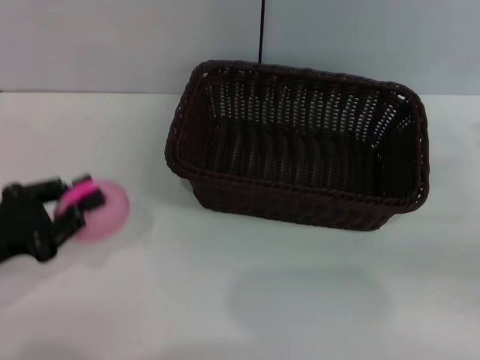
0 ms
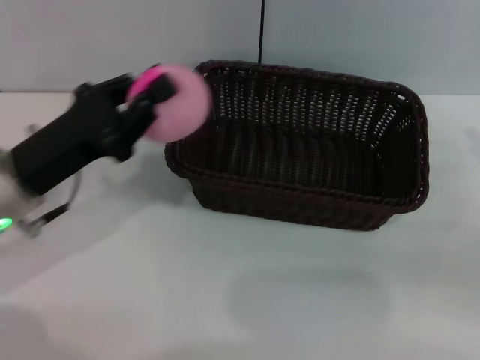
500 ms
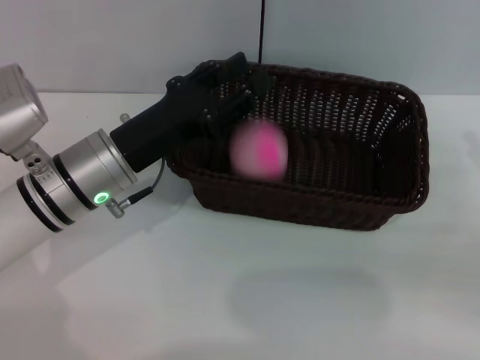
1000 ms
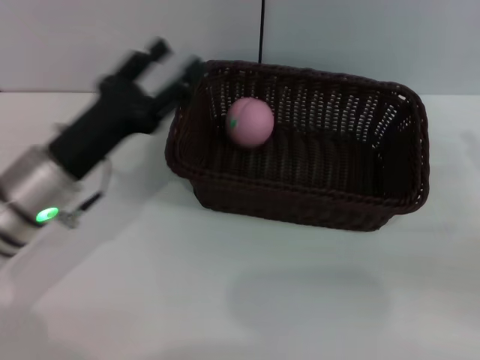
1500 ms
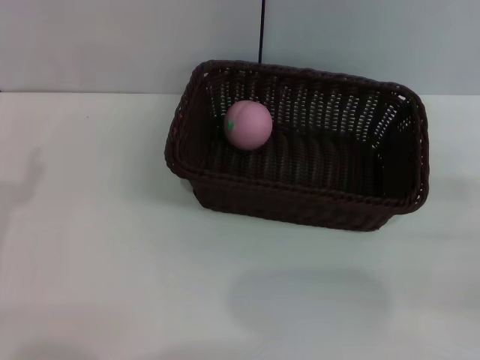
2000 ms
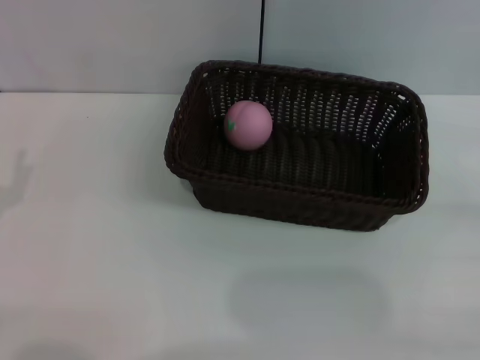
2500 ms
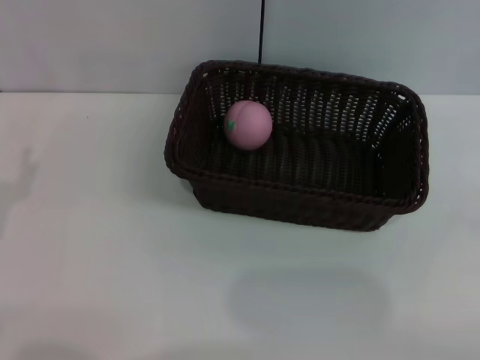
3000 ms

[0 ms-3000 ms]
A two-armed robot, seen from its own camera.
Step, 500 ms to 1500 ms: Place the peach into the basket with the left gripper.
0 ms to 1500 ms: The left gripper heads to the right and forward, covering some 15 cm, and opens up.
1500 ms to 3000 ms: The right gripper goes about 10 cm backward and to the right. The left gripper is displaced to the left and backward by roughly 15 cm.
